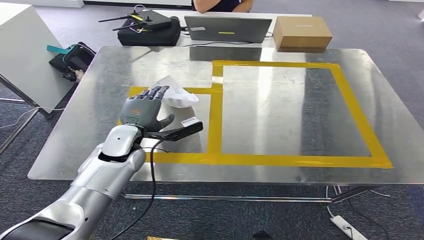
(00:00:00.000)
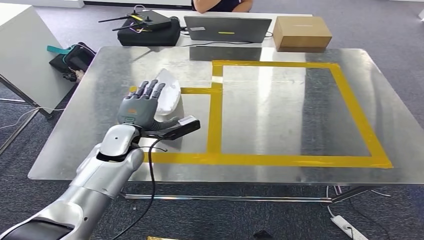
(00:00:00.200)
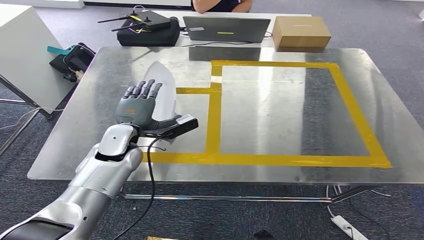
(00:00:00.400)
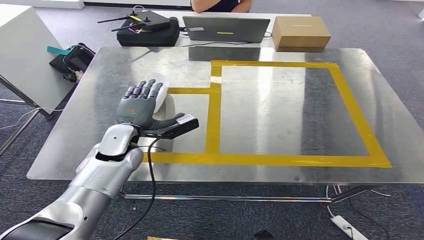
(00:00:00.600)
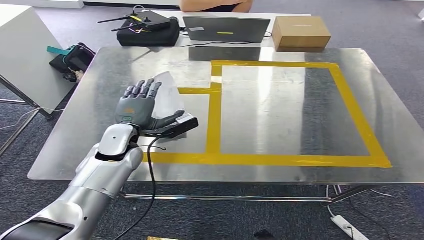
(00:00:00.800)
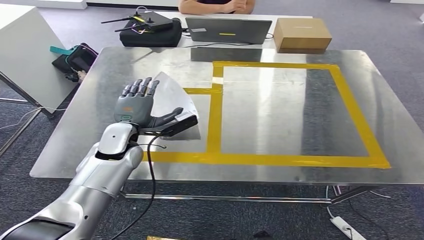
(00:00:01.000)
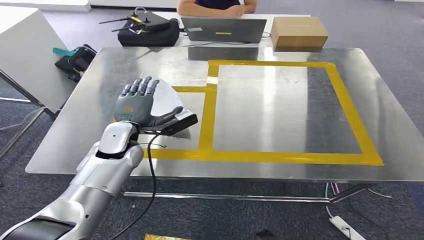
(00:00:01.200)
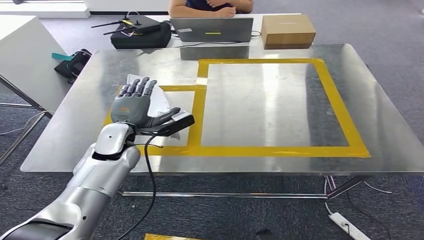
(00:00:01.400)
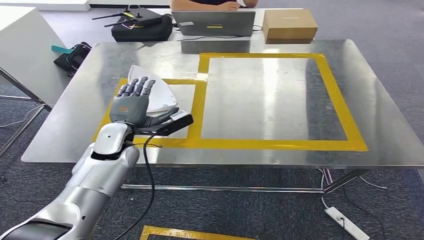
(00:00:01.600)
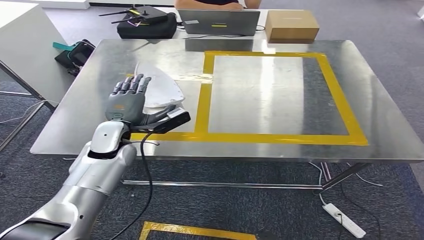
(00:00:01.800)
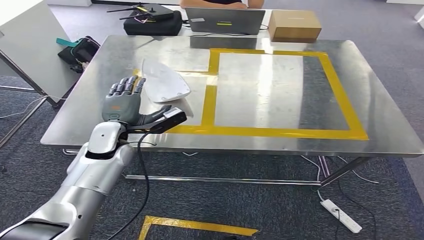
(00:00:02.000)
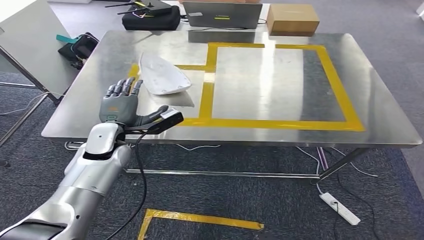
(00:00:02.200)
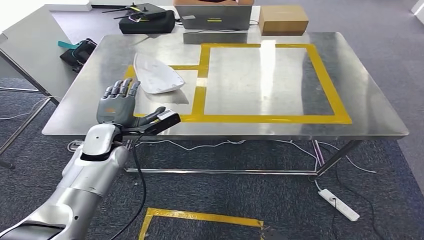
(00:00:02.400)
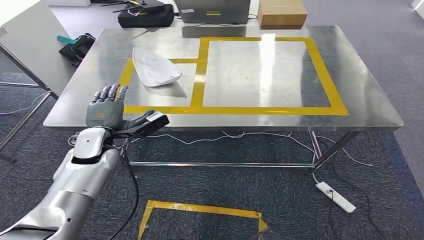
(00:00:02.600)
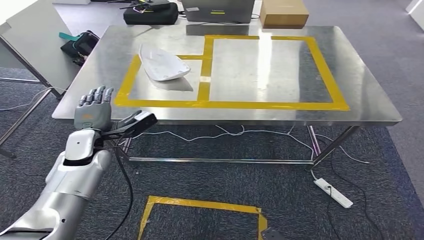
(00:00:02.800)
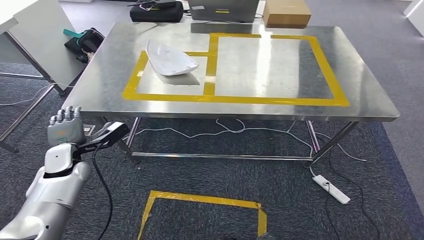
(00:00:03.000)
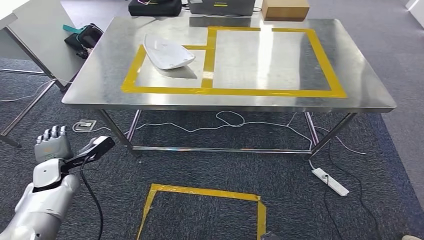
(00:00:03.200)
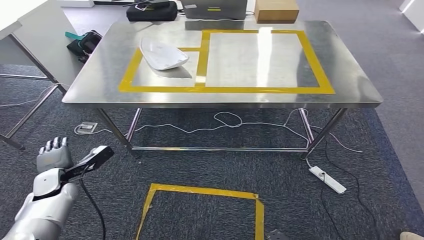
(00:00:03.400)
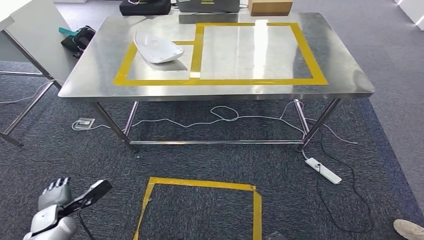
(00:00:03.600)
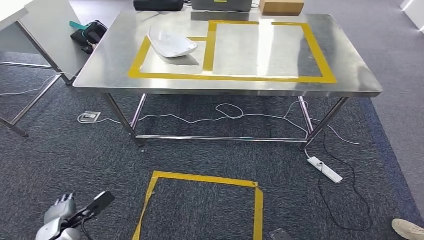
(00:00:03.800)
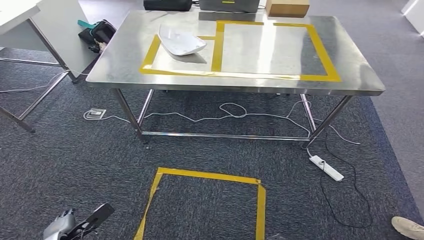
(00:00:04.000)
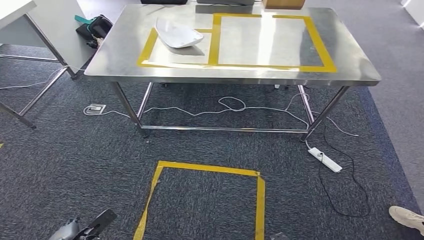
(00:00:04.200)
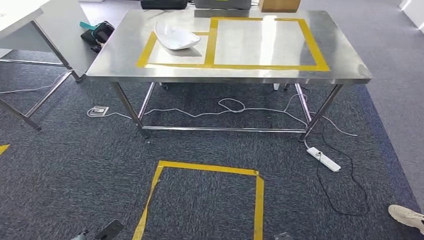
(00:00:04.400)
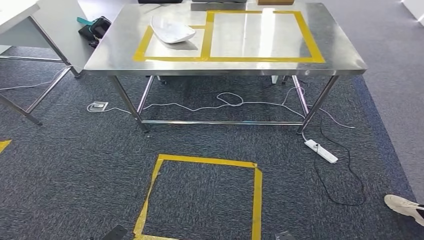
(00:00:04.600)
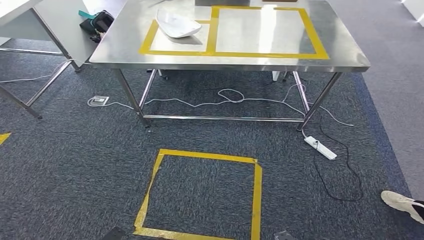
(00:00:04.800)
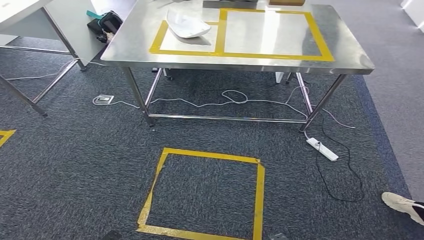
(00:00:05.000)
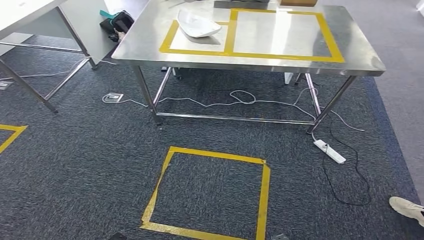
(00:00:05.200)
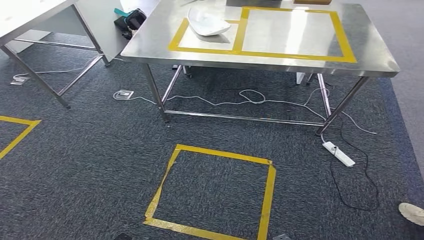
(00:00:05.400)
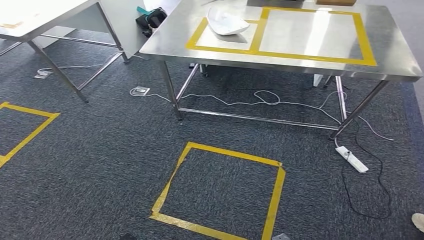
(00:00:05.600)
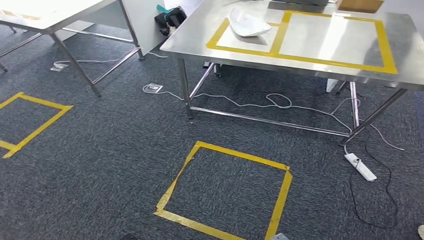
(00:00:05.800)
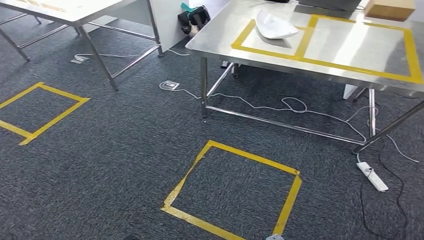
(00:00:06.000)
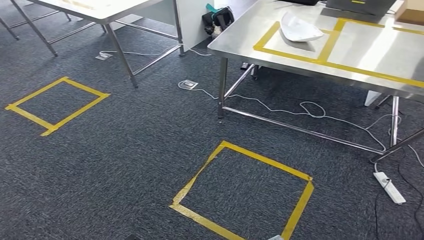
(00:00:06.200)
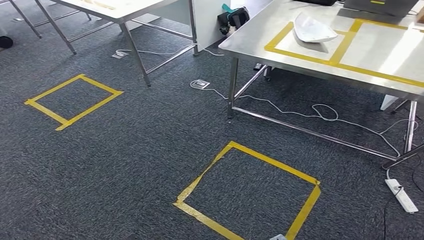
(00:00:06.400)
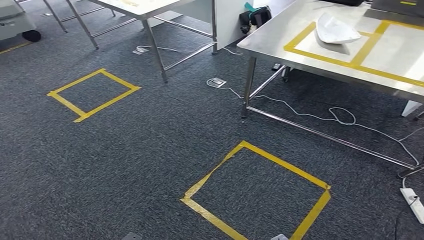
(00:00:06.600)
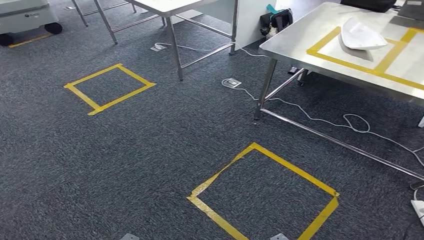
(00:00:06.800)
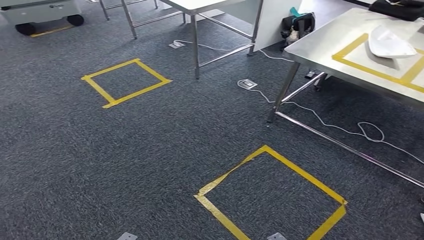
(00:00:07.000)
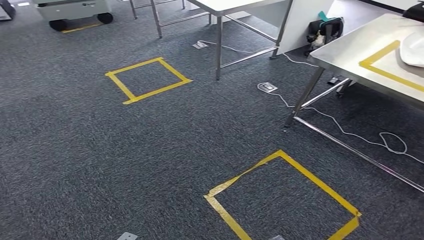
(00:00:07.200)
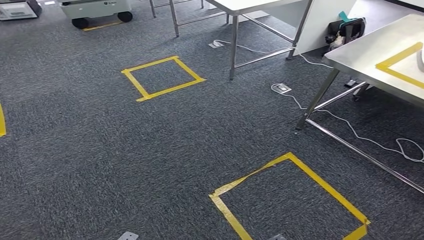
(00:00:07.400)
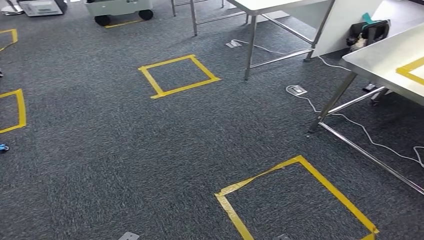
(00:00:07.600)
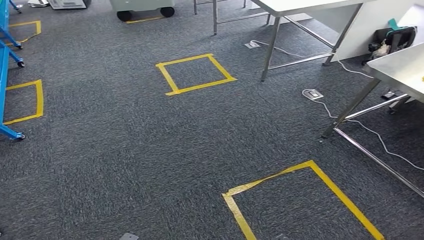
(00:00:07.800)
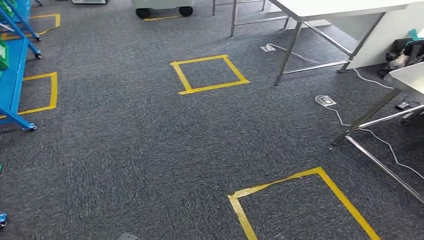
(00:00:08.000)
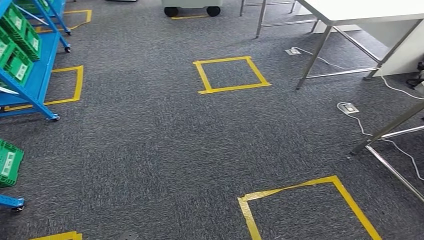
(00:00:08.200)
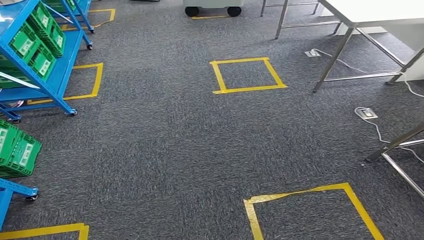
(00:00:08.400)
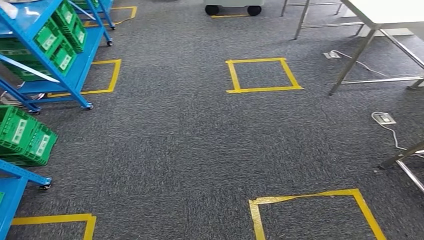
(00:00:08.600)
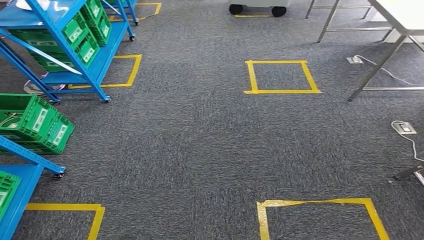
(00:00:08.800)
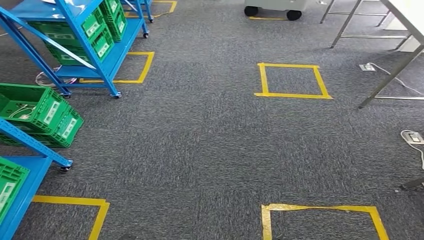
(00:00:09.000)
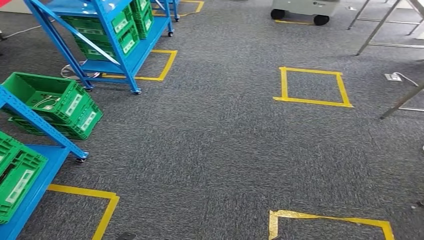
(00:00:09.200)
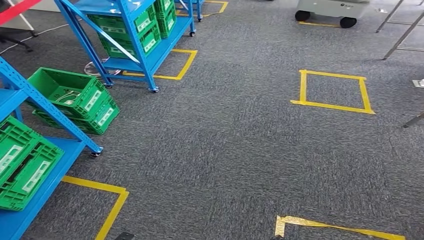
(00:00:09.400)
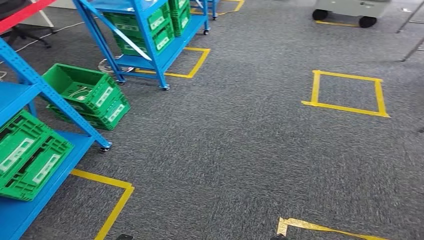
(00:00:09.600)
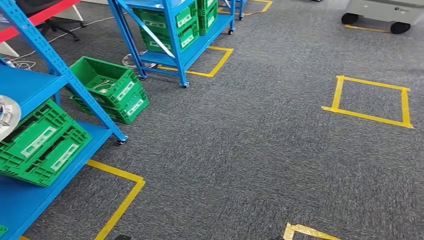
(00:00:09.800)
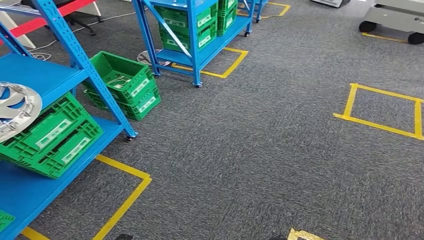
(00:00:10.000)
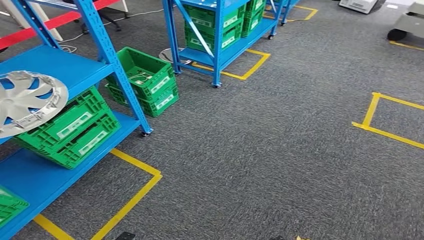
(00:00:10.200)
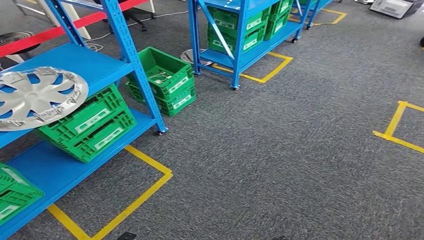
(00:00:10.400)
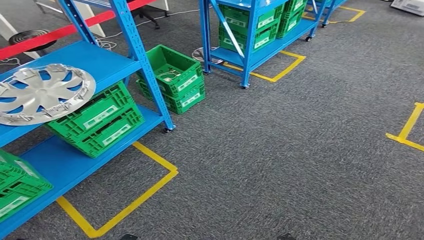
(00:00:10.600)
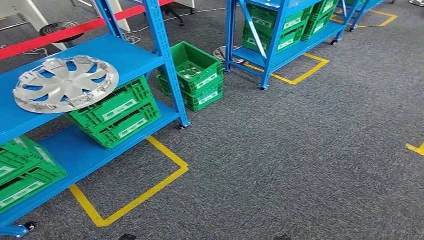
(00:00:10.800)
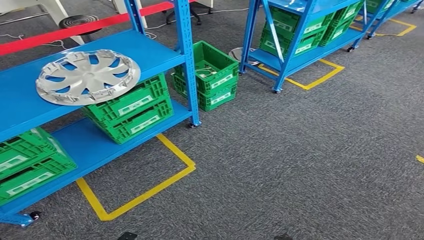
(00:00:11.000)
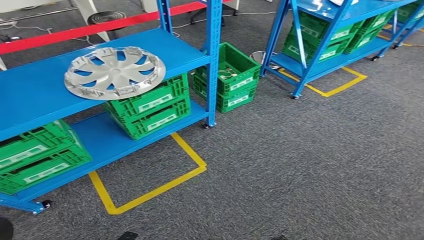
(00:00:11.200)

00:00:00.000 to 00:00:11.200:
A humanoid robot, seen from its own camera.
Step, 00:00:00.000 to 00:00:02.200: Insert the small component into the corresponding slot on the workbench.

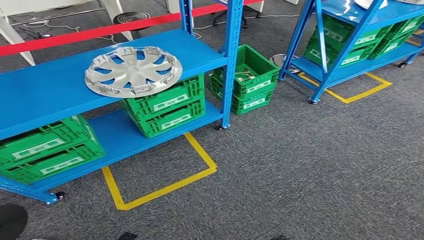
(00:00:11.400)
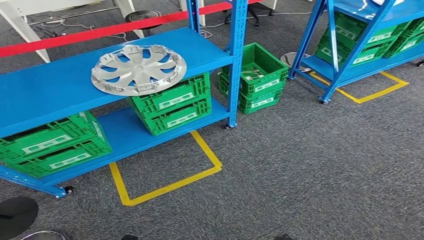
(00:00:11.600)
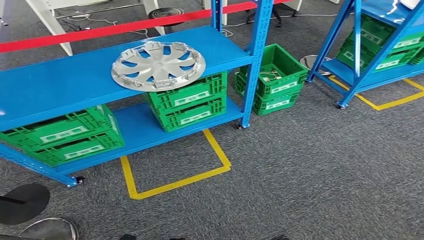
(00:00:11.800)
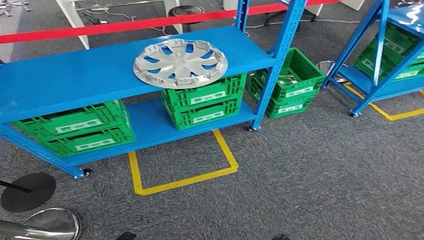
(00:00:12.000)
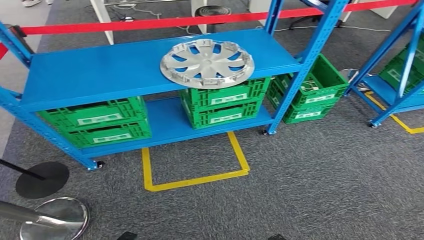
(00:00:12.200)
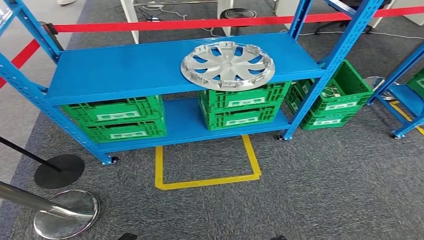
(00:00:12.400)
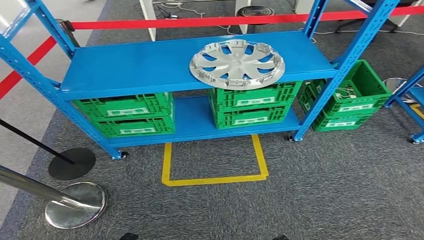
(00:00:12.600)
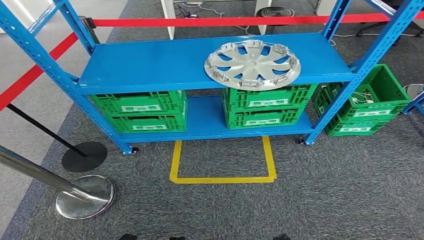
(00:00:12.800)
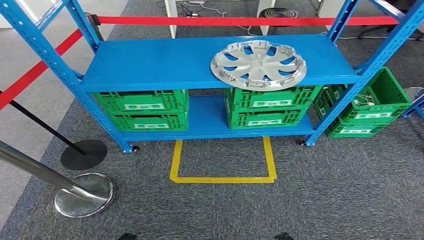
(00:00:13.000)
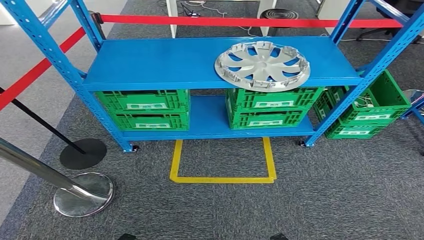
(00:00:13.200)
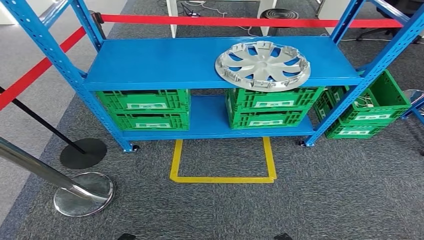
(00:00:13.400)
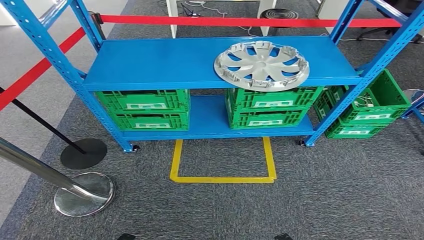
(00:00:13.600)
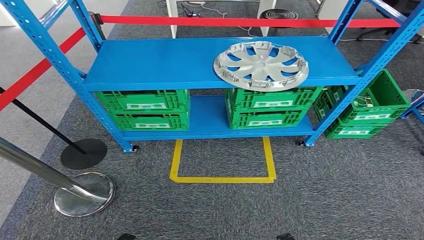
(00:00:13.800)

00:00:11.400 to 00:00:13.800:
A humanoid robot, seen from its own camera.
Step, 00:00:11.400 to 00:00:13.800: Move to the initial position at the workbench.
